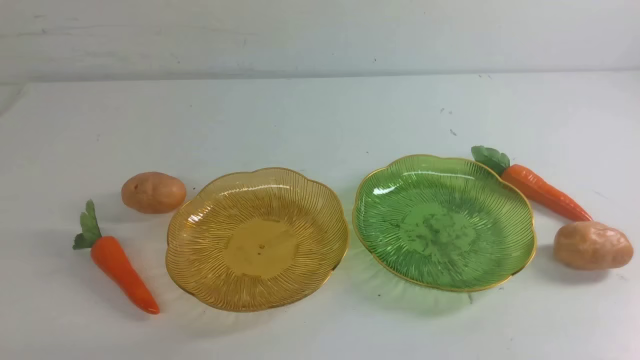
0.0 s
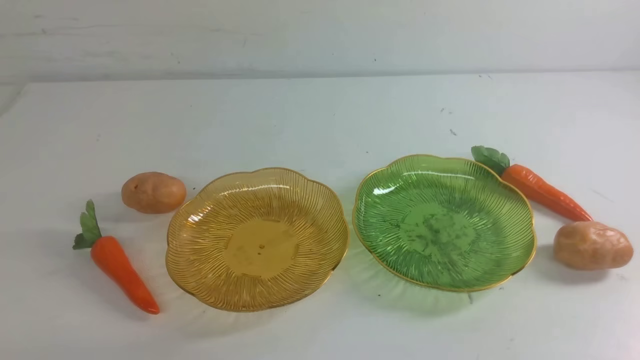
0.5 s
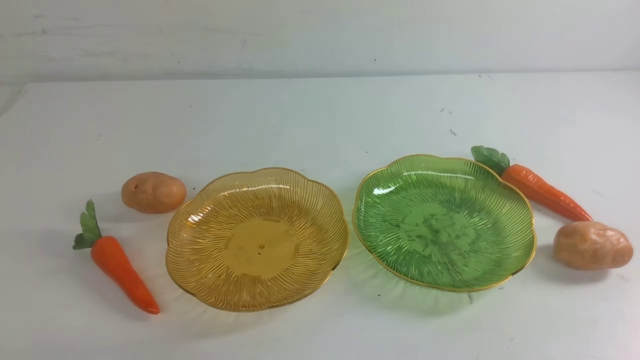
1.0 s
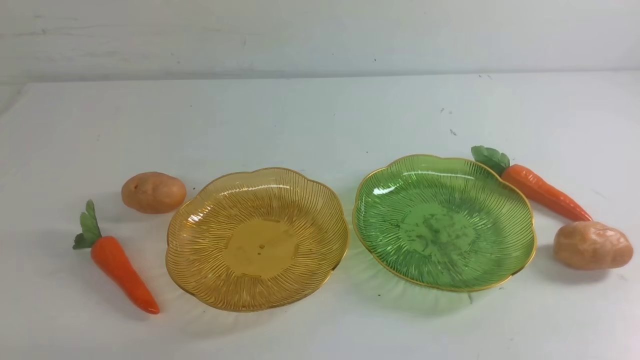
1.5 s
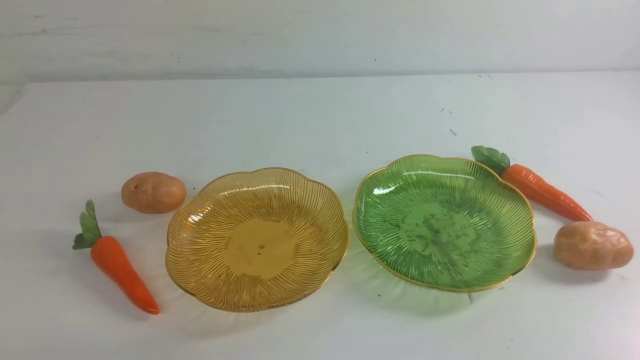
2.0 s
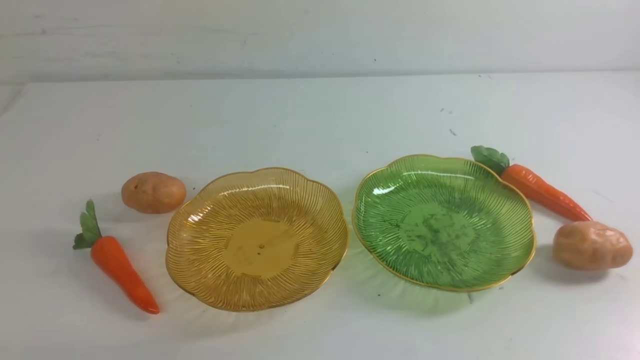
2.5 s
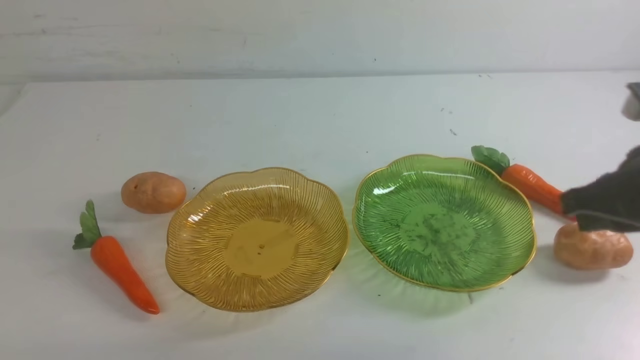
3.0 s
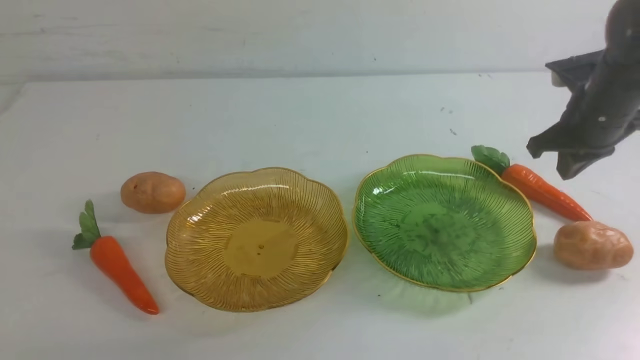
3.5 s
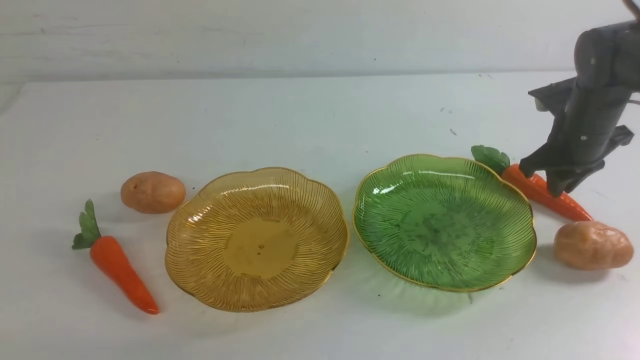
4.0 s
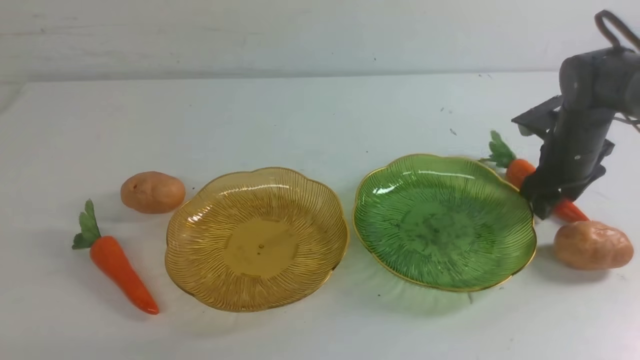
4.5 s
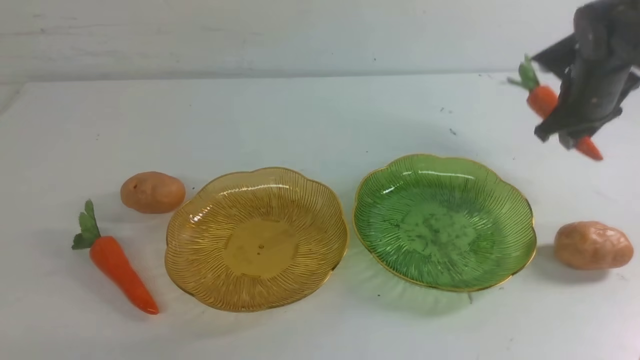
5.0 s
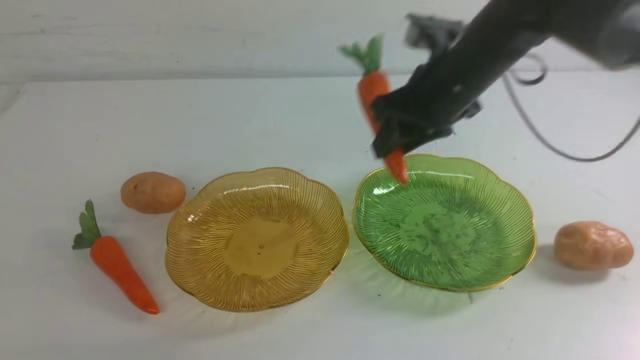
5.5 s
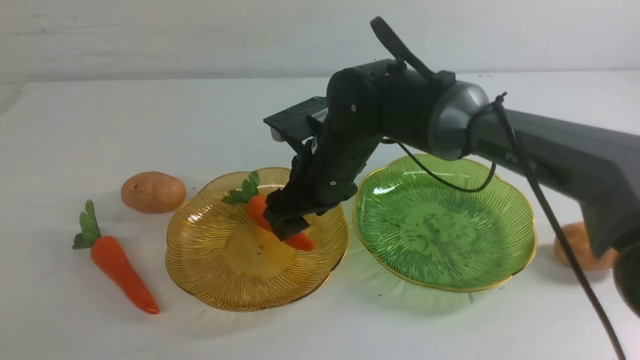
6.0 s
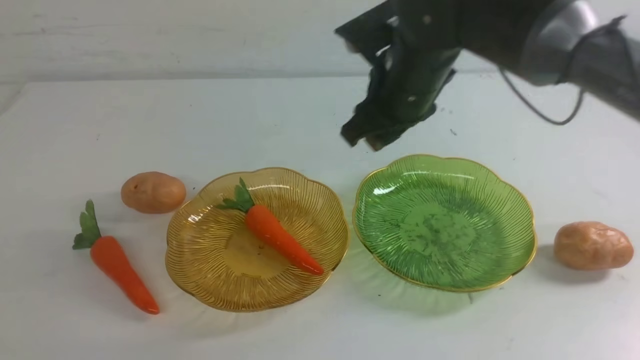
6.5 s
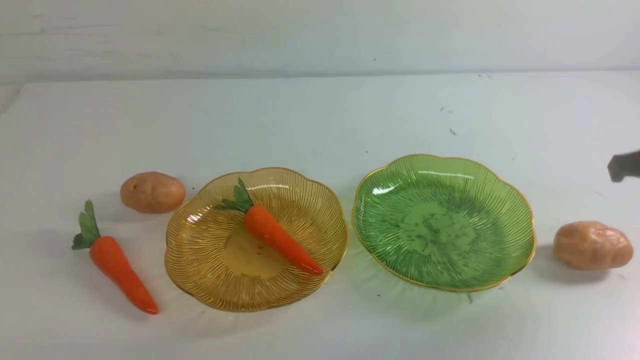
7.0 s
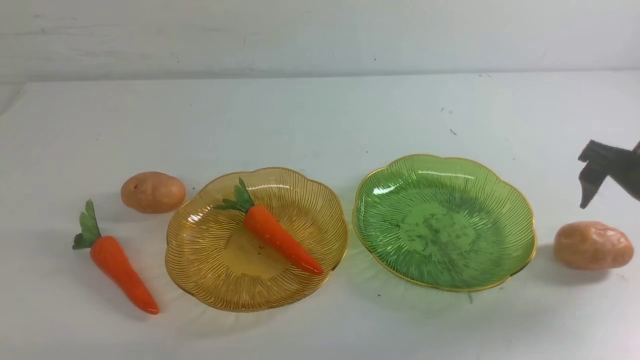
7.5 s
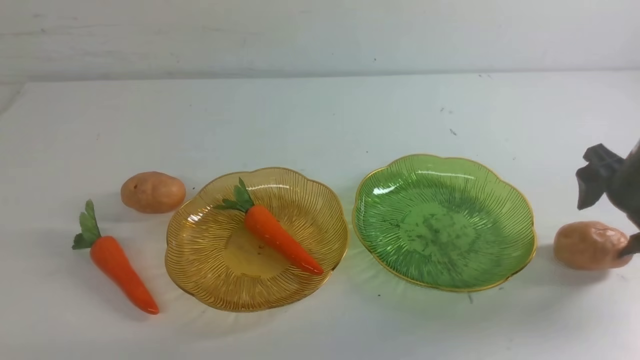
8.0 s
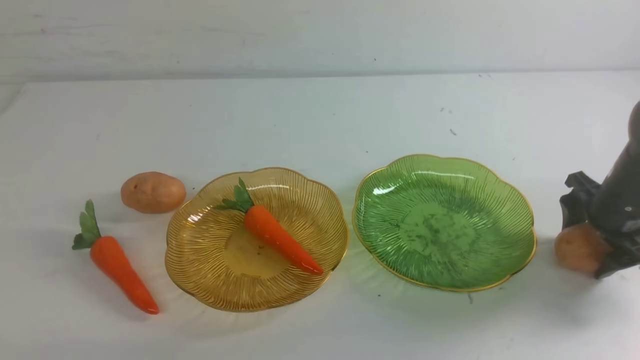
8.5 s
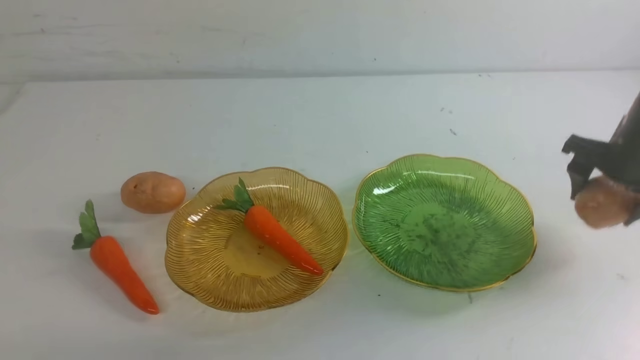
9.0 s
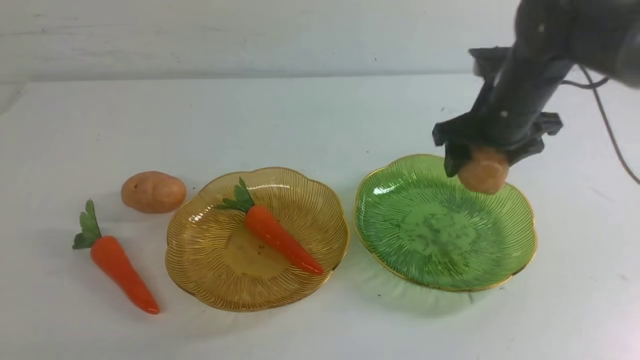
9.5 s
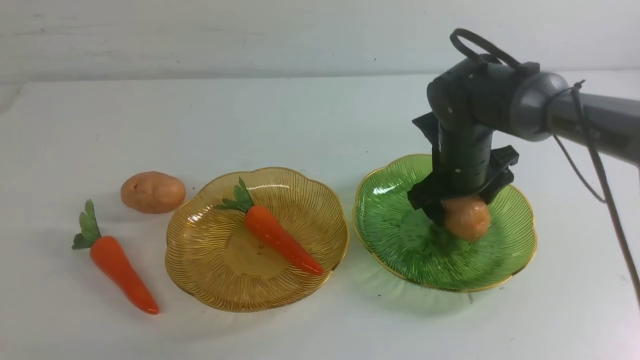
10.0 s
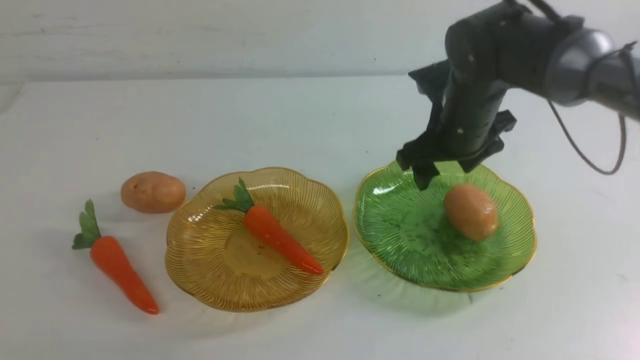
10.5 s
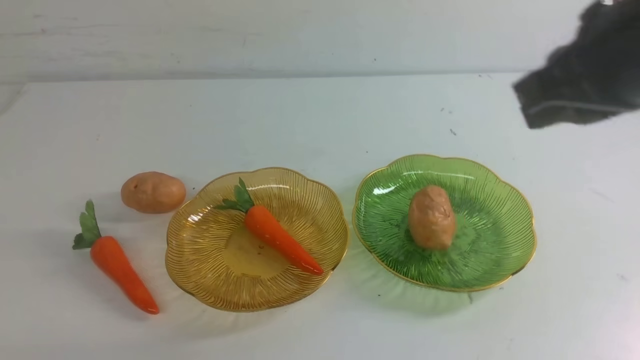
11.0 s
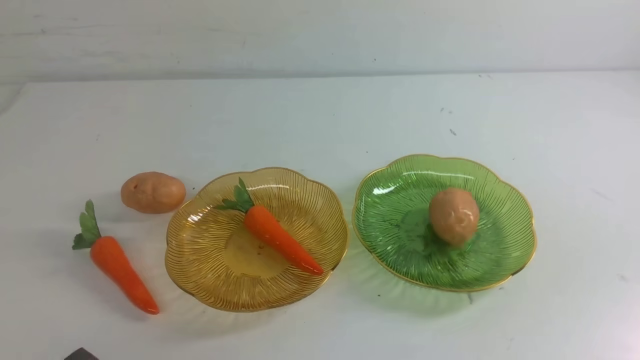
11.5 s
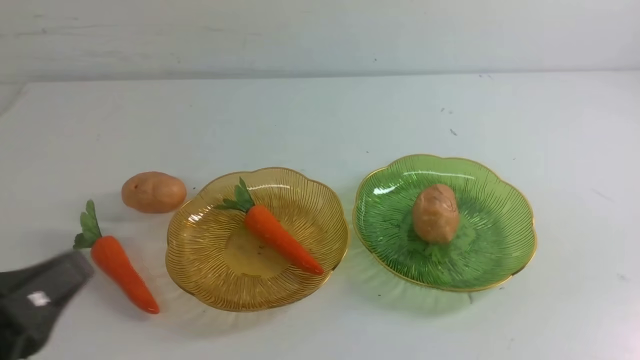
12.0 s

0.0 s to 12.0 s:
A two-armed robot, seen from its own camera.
Step, 0.0 to 6.0 s: use the right arm to grab a carrot and put it into the left plate.
Step, 6.5 to 10.0 s: Grab a potato with your right arm and put it on the right plate.
2.0 to 4.0 s: The right gripper is displaced forward by approximately 40 cm.
4.0 to 6.0 s: The right gripper travels to the left by some 30 cm, and opens.
6.0 to 8.0 s: The right gripper is displaced to the right by approximately 30 cm, and closes, then opens again.
8.0 to 10.0 s: The right gripper goes roughly 20 cm to the left.
10.0 to 12.0 s: The right gripper goes approximately 35 cm backward, upward and to the right, and closes its fingers; the left gripper is displaced upward and forward by roughly 15 cm.

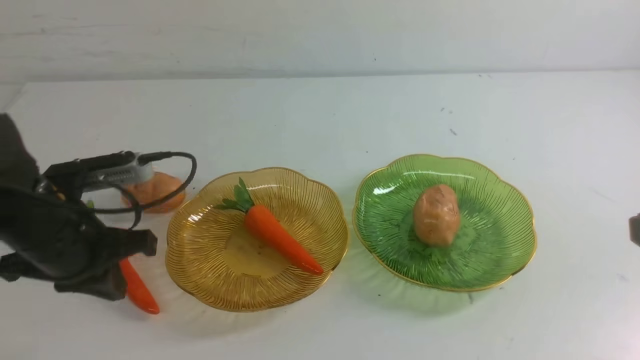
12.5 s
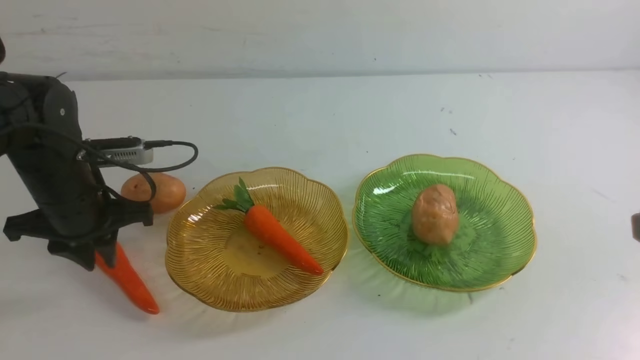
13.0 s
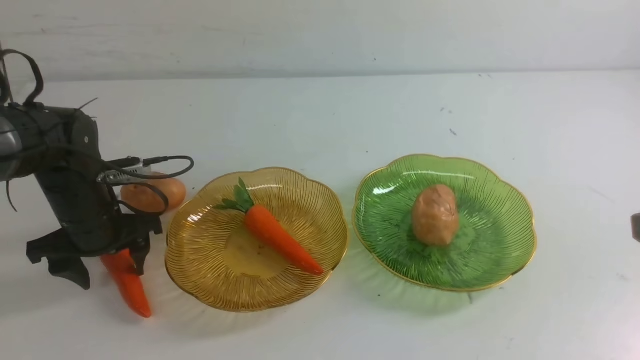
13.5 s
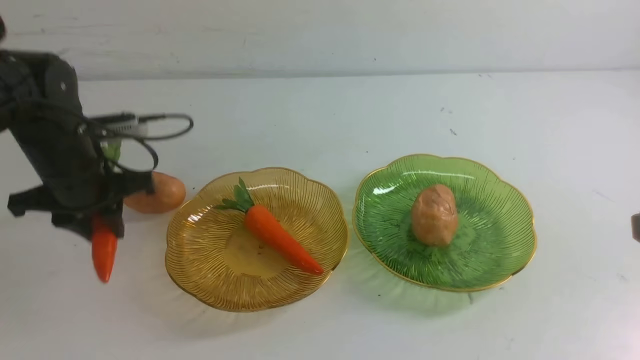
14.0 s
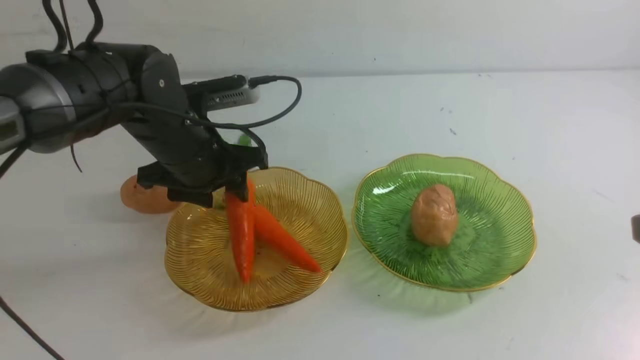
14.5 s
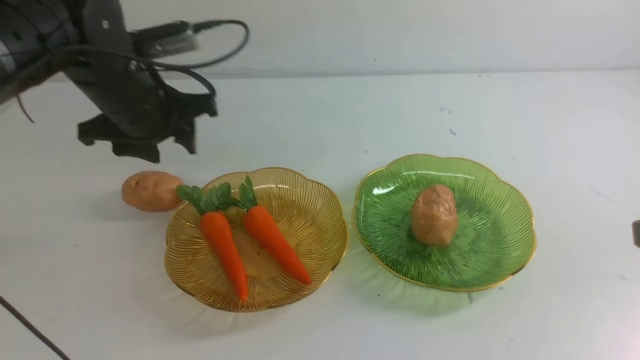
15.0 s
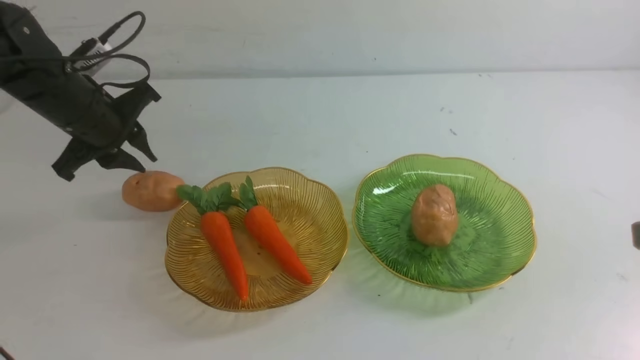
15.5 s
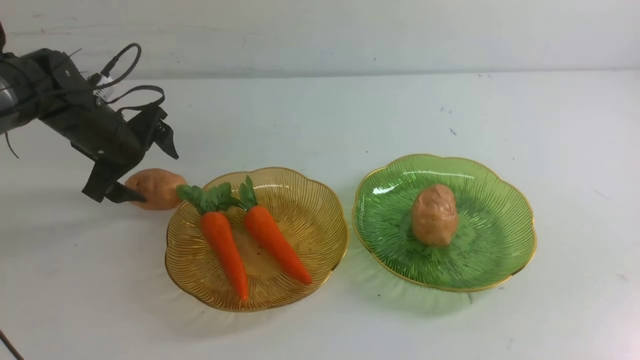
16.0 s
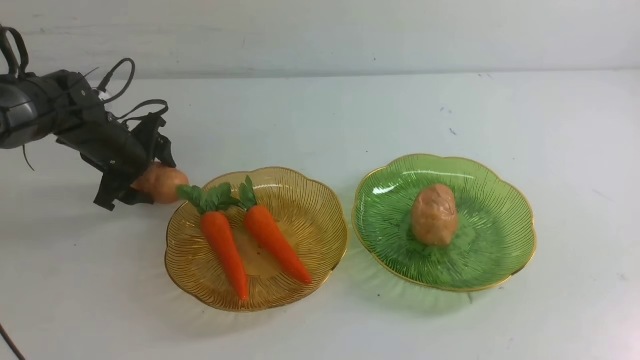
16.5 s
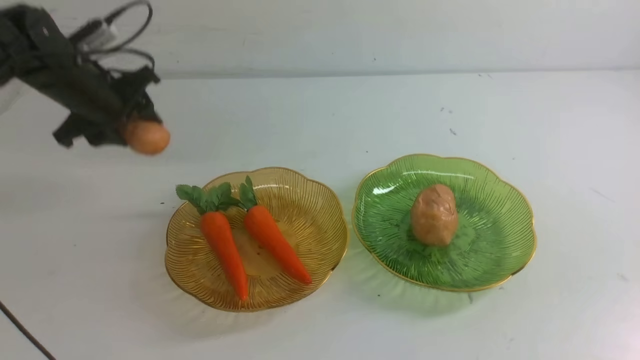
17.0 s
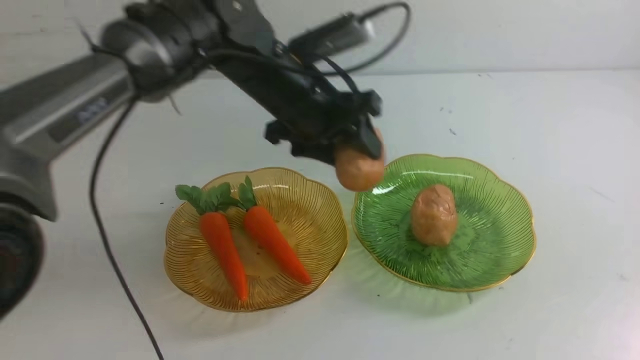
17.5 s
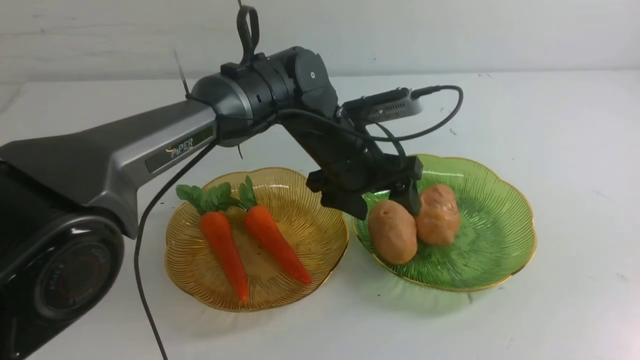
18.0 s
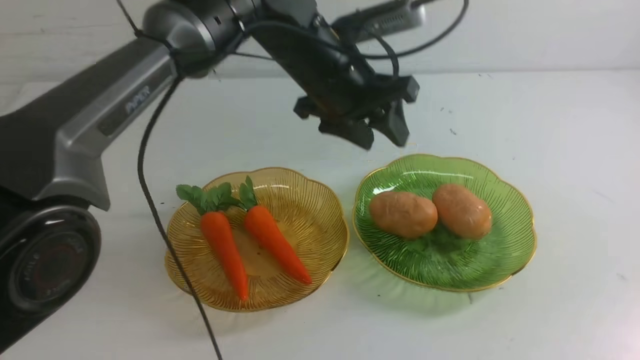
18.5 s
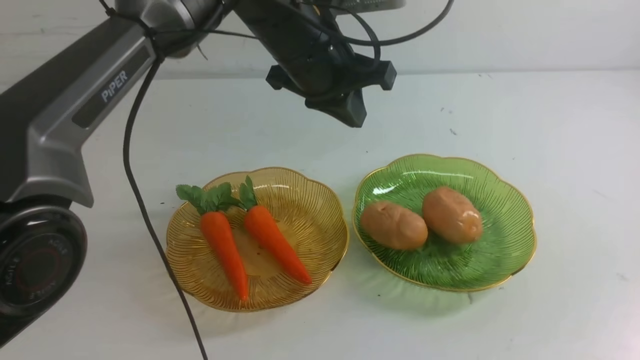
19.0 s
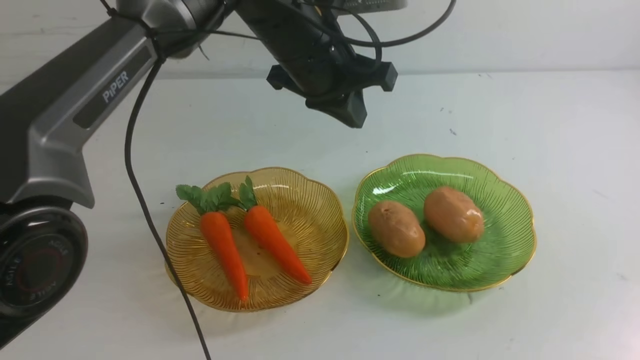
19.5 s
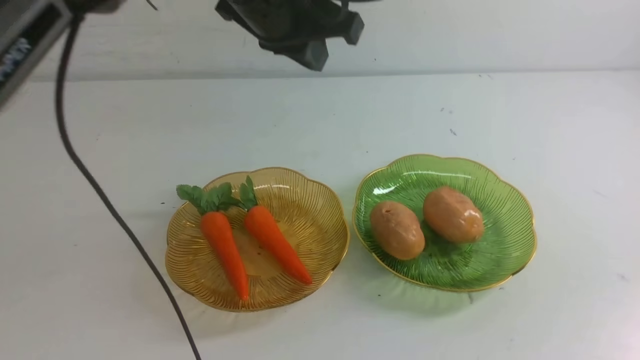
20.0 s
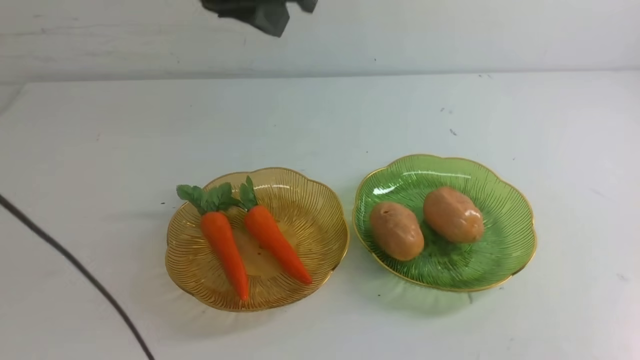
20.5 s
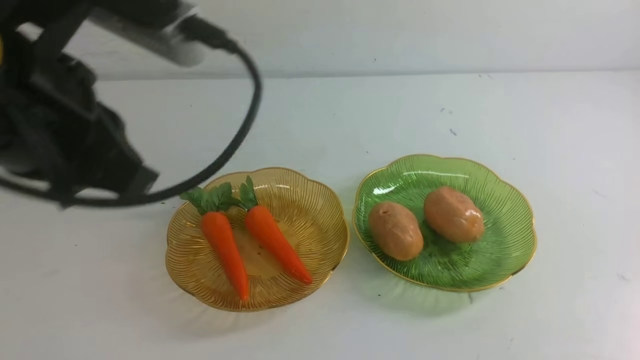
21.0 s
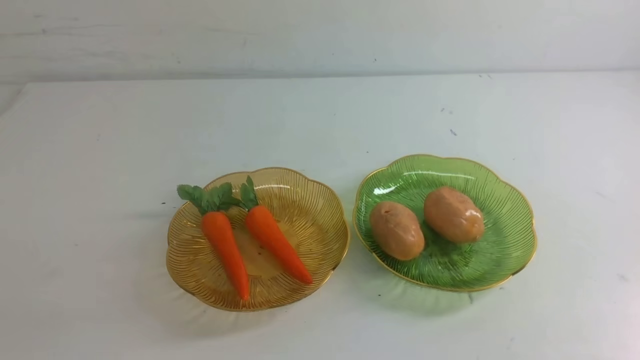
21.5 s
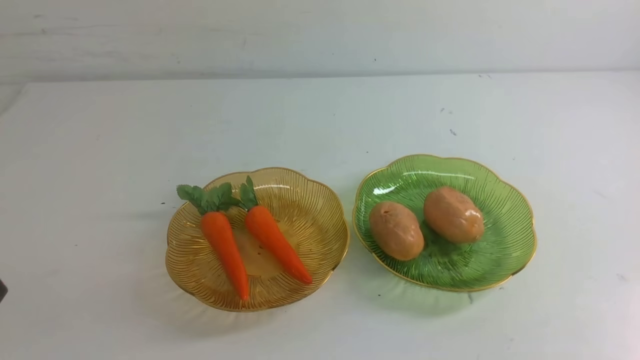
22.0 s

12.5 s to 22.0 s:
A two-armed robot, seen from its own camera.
Step, 12.5 to 14.5 s: use the left arm to grab a carrot and put it into the left plate.
Step, 15.0 to 18.0 s: Grab a potato with your left arm and put it on the right plate.
12.5 to 14.5 s: The left gripper moves to the right and forward, roughly 10 cm, and opens up.
14.5 to 16.5 s: The left gripper travels to the left and forward by roughly 15 cm, and opens and closes again.
16.5 to 18.0 s: The left gripper is displaced to the right by approximately 25 cm.
18.0 to 20.0 s: The right gripper heads downward, covering approximately 10 cm. Meanwhile the left gripper moves upward and to the left, about 15 cm, and closes.
20.0 to 22.0 s: The right gripper is displaced downward by about 5 cm; the left gripper is displaced backward, to the left and downward by approximately 40 cm.
